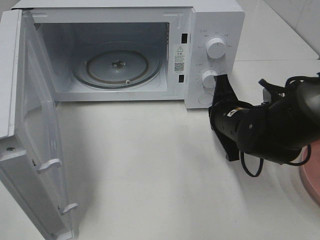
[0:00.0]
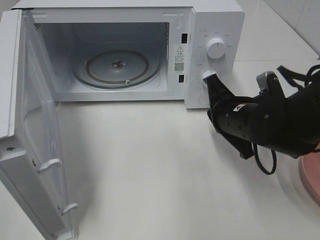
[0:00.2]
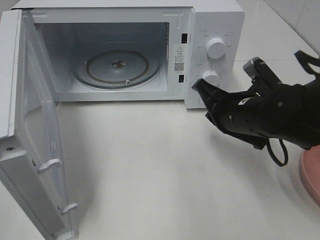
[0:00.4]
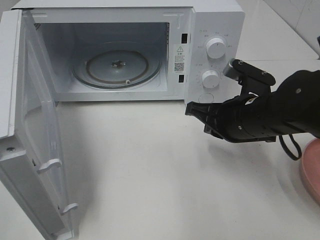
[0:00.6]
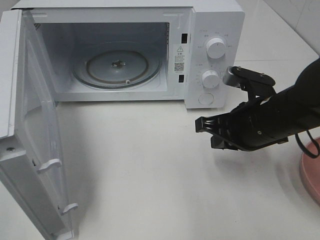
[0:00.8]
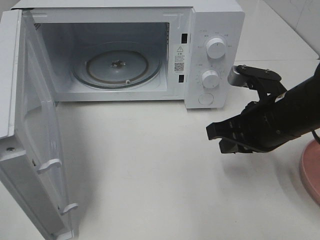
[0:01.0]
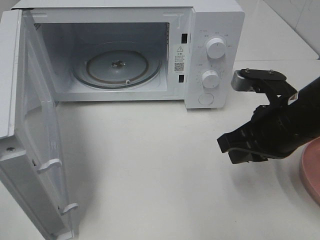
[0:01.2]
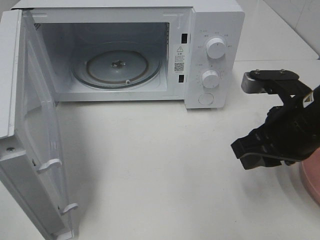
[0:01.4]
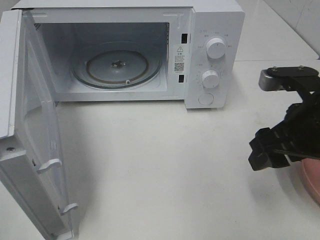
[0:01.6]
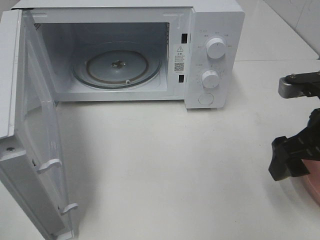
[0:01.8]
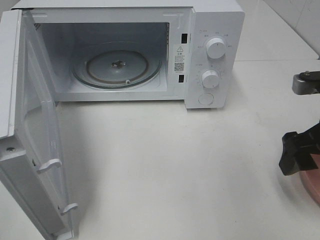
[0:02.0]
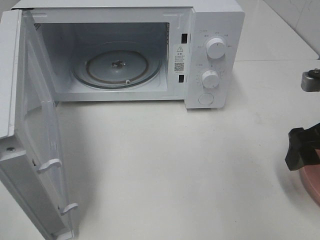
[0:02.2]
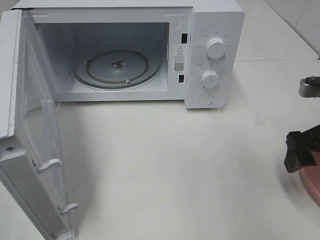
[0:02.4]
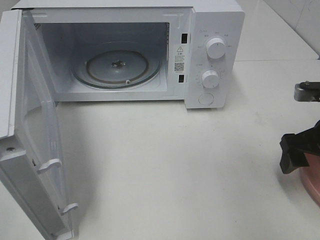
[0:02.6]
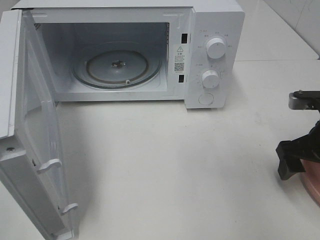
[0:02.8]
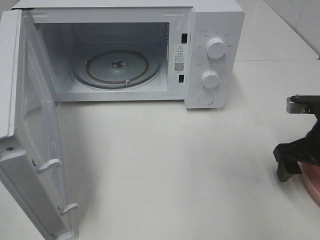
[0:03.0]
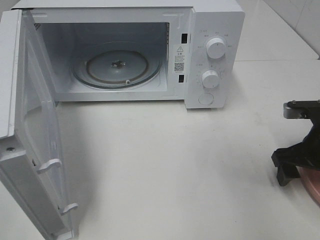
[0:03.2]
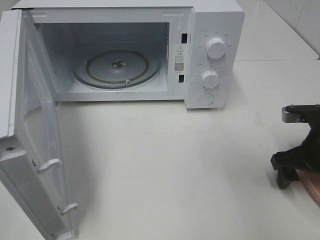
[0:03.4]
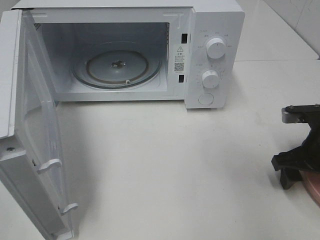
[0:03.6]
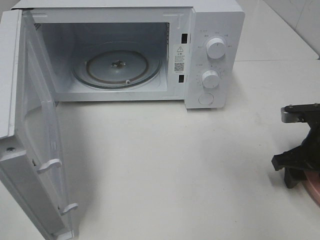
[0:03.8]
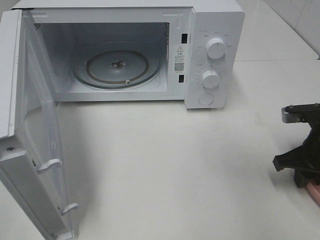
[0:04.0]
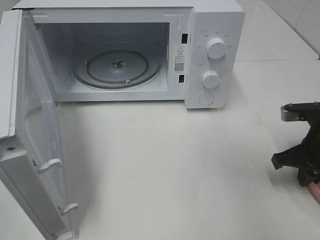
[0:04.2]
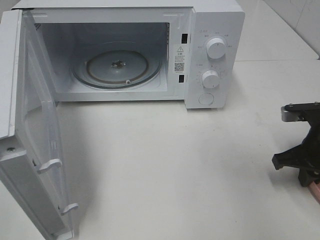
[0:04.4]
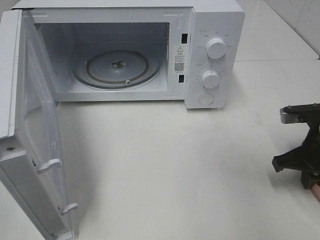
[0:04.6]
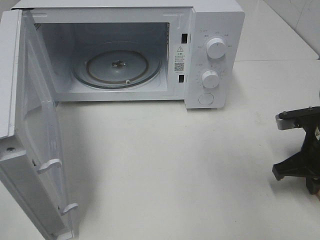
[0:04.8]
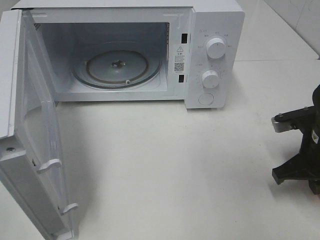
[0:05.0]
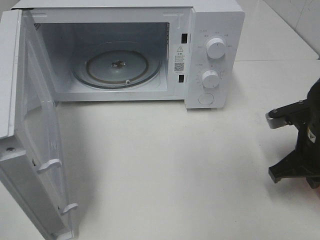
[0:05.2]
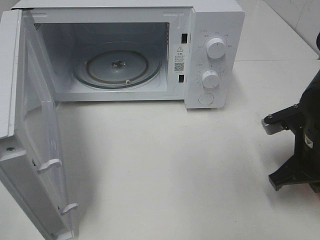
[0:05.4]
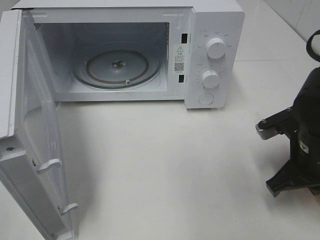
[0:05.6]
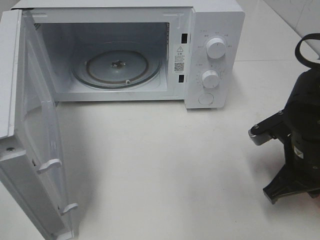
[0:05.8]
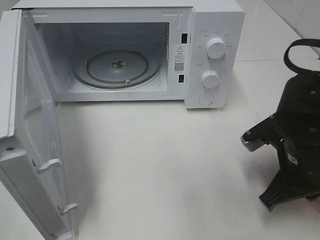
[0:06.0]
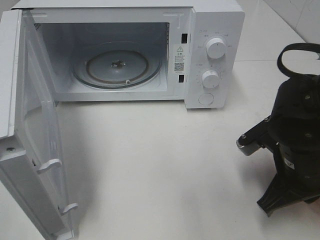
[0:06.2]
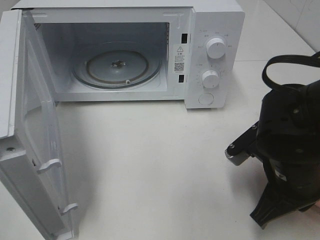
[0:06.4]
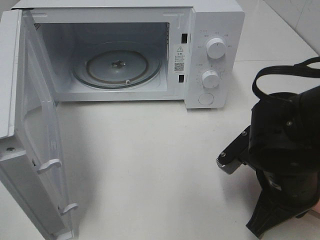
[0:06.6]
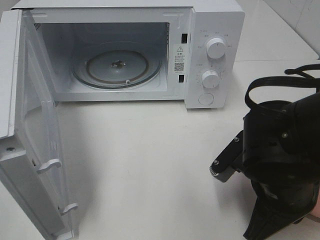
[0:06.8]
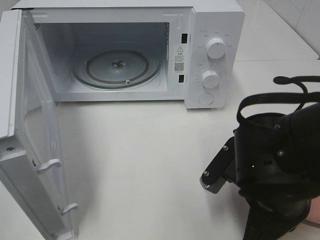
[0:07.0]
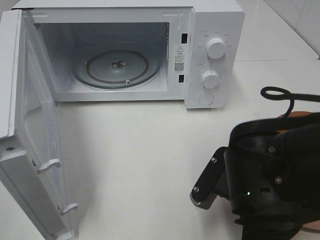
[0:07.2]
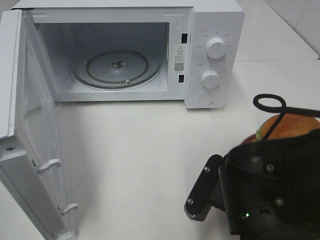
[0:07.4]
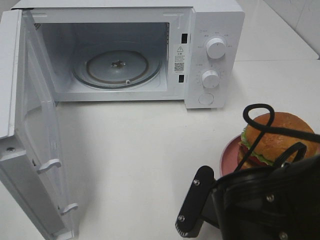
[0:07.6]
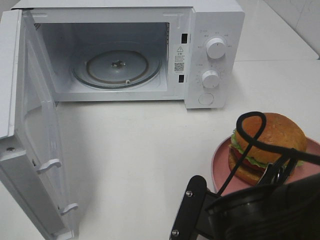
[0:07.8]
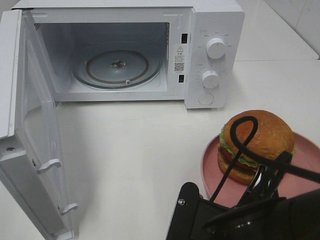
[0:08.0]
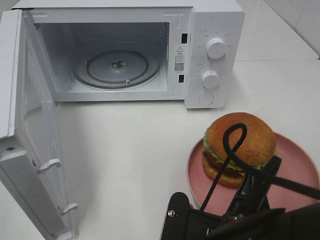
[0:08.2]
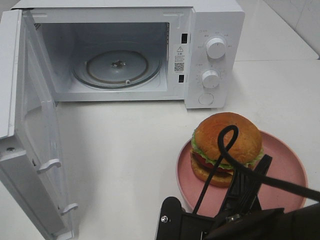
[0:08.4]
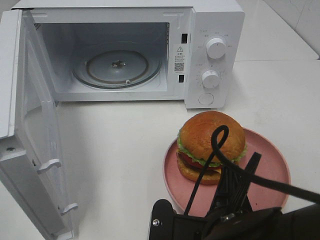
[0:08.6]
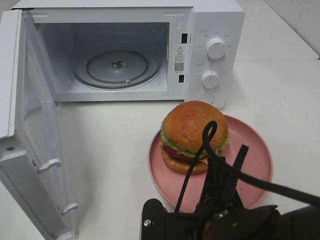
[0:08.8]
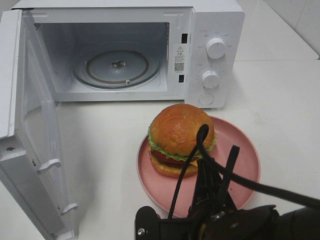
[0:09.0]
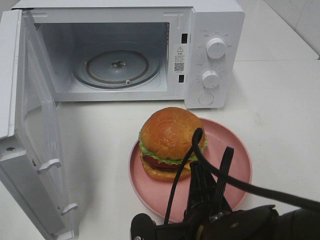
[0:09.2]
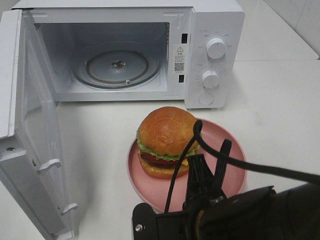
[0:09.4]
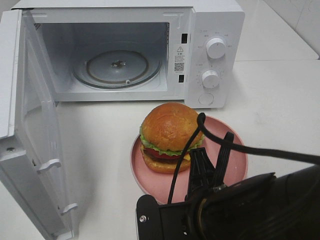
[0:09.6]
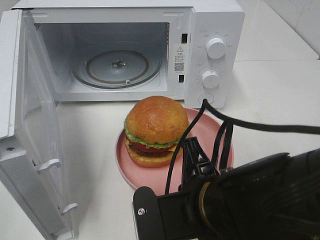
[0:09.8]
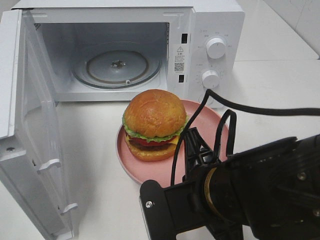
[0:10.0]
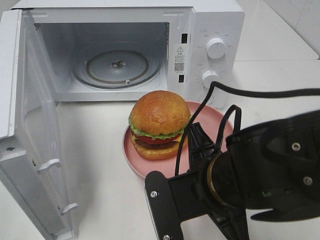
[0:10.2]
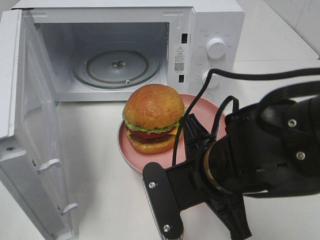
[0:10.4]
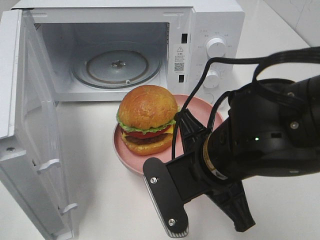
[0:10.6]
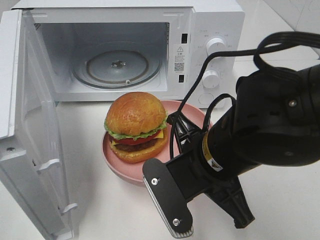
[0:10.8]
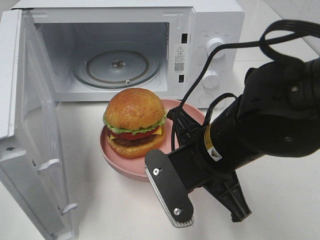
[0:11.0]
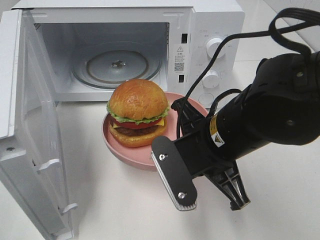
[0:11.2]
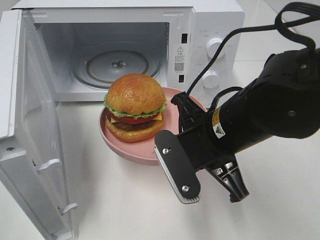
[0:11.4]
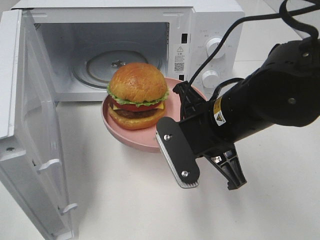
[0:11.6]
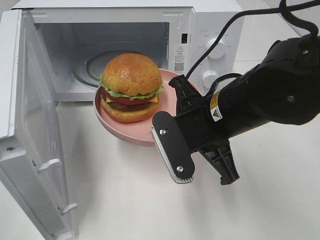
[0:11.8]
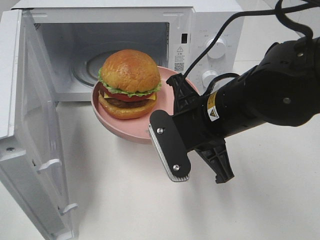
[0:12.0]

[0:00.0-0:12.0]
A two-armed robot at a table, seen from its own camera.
Task of the whole recording: Heat the burger.
Step, 0:00.0 to 0:04.8: Right hand: grab the plate with the hamburger.
0:00.0 to 0:01.6: The right gripper heads upward, backward and to the right, covering about 15 cm, and opens.
0:01.6 to 0:03.0: The right gripper moves downward and to the right, about 10 cm.
0:03.0 to 0:04.4: The right gripper closes.
0:04.4 to 0:06.0: The right gripper travels to the left by about 10 cm.
0:06.0 to 0:07.6: The right gripper goes some 15 cm backward and to the left.
0:09.0 to 0:10.4: The right gripper moves forward, some 5 cm.
0:10.4 to 0:12.0: The right gripper travels forward by roughly 5 cm.

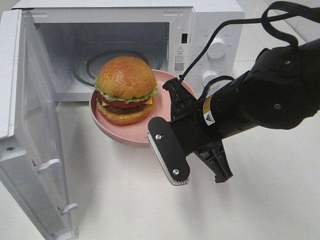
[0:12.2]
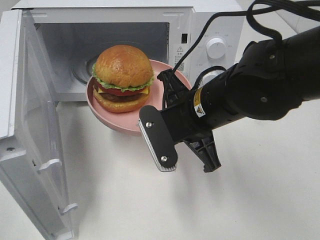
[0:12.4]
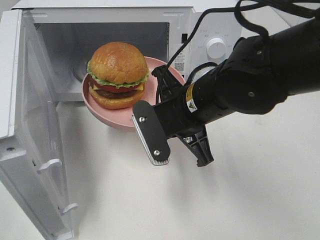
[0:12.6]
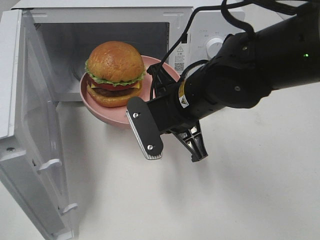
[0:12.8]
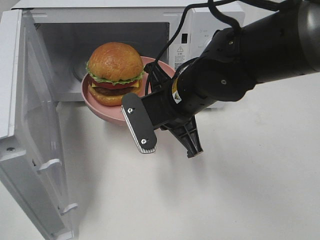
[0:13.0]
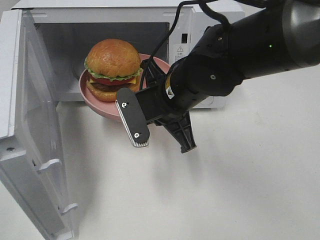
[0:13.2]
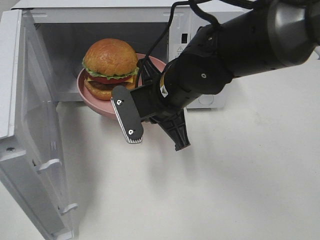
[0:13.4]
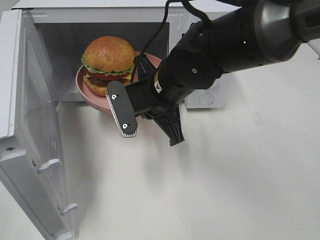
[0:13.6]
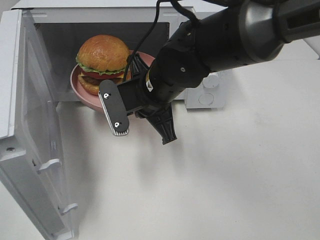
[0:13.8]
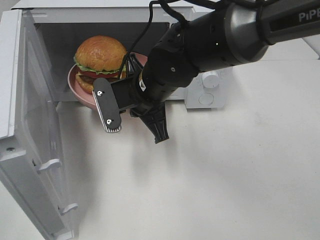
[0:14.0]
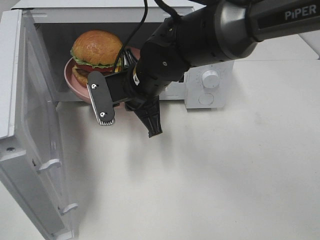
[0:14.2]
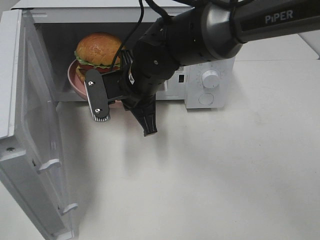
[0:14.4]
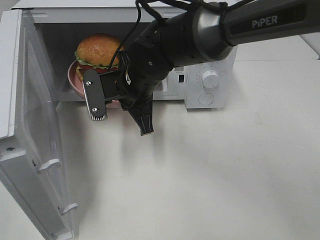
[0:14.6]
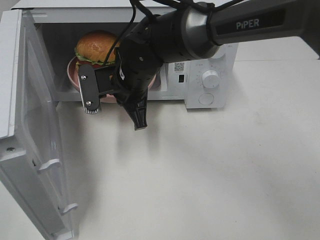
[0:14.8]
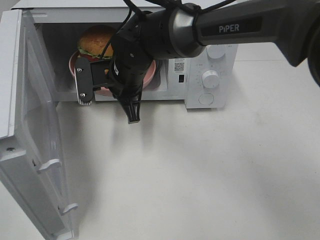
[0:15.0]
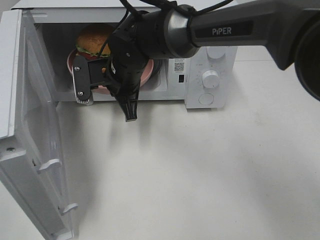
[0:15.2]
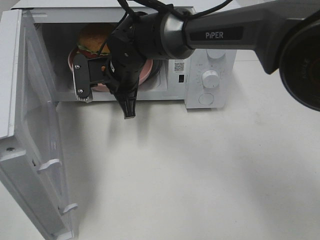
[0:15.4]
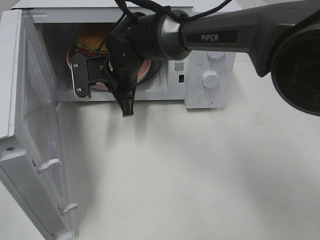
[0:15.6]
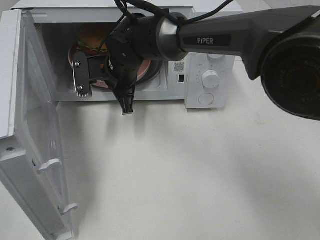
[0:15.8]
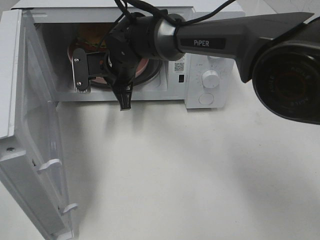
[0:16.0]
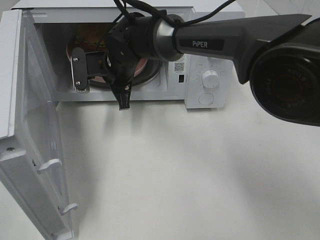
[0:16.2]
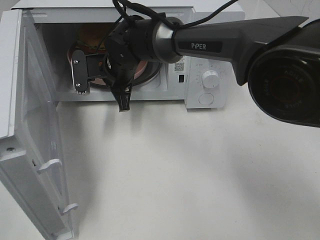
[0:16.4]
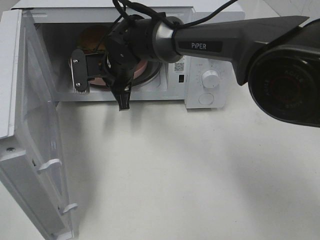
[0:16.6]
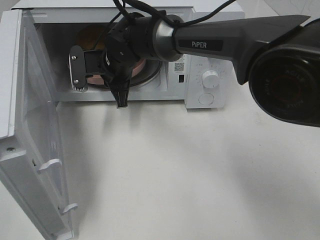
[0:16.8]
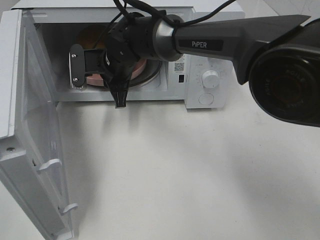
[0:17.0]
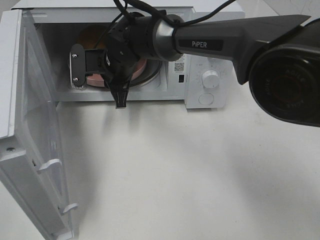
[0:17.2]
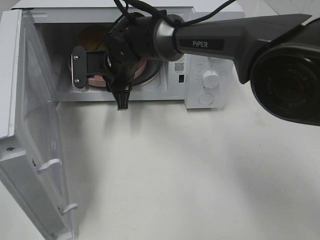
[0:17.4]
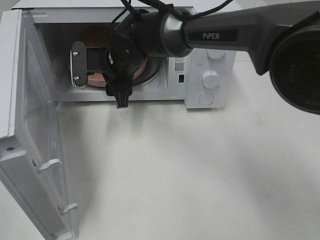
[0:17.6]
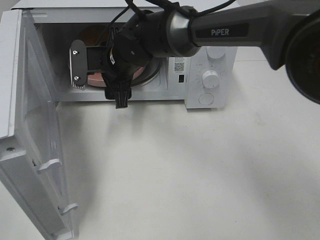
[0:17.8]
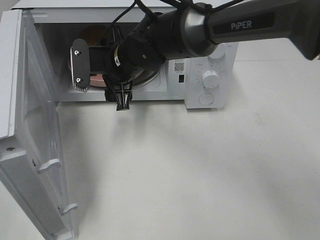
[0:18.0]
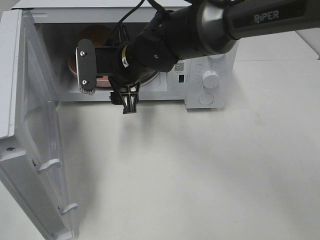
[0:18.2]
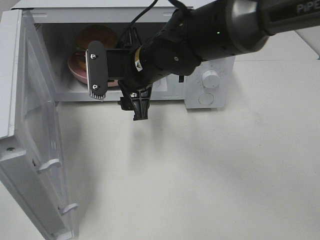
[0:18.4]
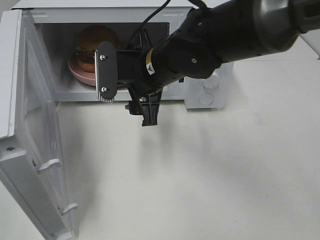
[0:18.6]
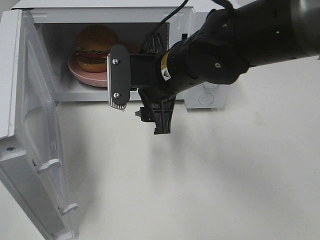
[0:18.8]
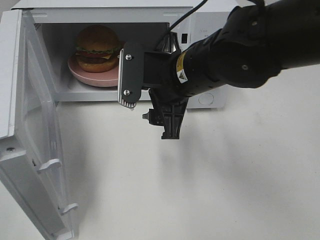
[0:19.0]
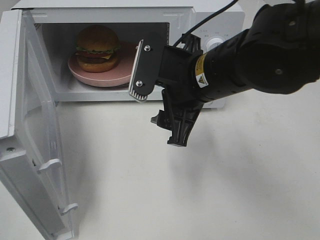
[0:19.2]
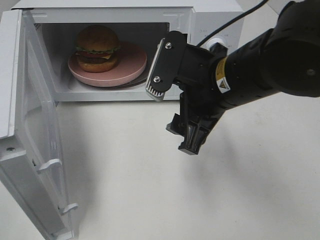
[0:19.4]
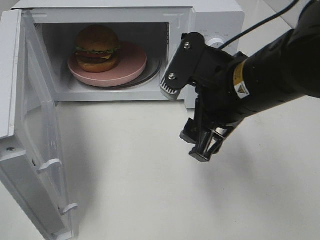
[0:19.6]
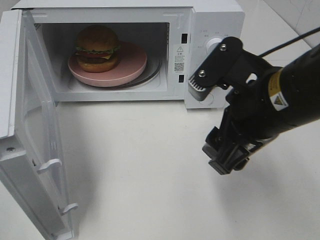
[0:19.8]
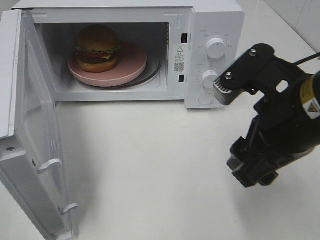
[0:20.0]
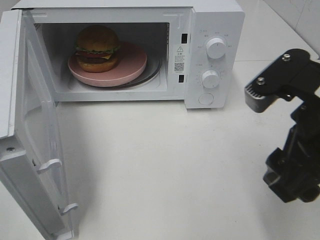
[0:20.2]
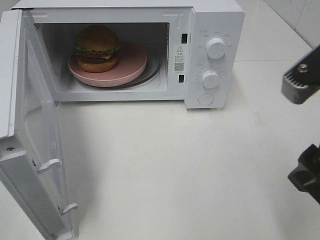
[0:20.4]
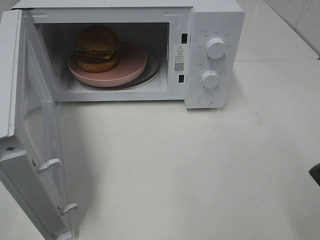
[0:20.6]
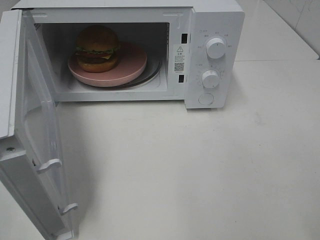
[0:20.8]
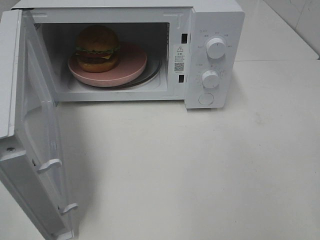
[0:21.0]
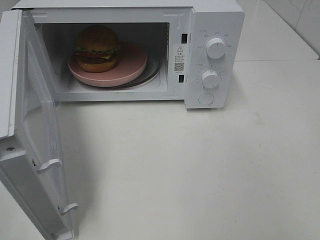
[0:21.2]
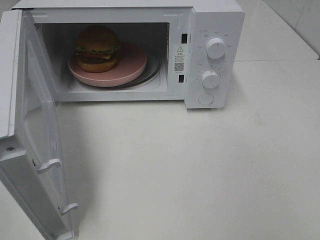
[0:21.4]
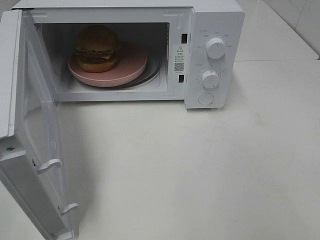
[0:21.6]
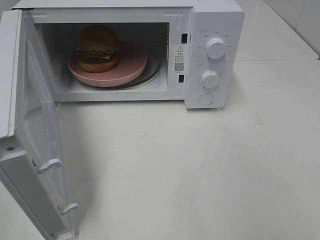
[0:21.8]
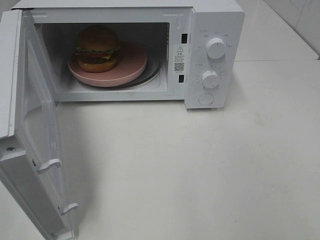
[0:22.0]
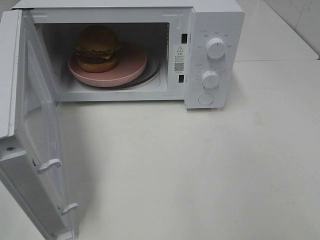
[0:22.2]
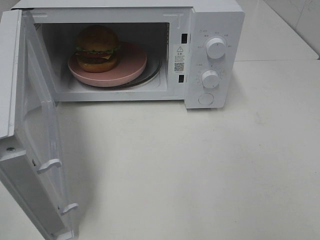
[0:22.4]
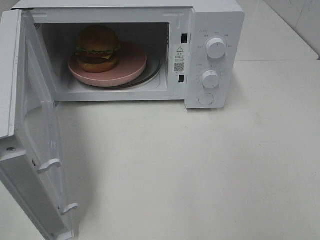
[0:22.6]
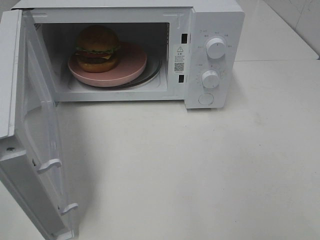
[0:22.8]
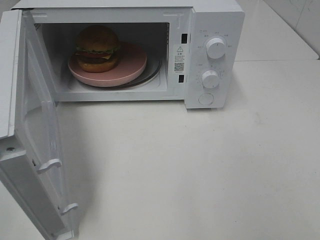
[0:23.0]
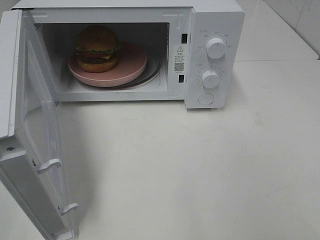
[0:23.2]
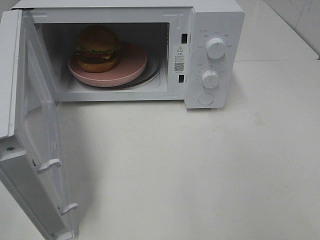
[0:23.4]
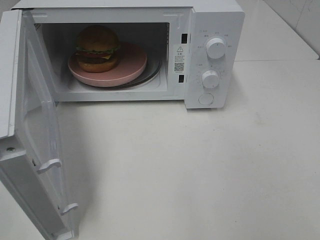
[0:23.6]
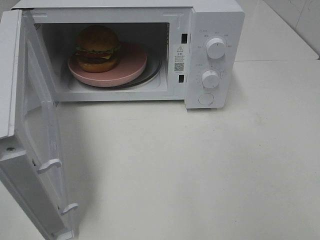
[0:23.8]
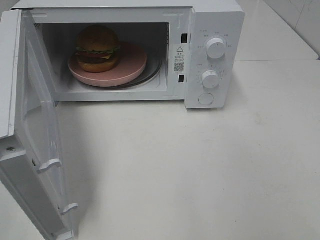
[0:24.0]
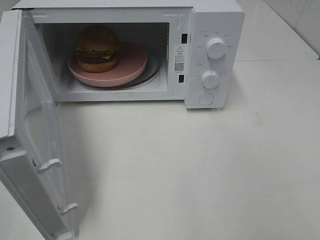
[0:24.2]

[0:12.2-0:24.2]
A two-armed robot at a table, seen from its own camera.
Task of the whole recording: Heat the burger.
Step, 0:12.2 to 0:17.2: Right hand: place the plate in the microwave.
0:12.2 to 0:13.8: The right gripper travels forward and to the left by some 10 cm.
0:13.8 to 0:15.2: The right gripper is displaced forward and to the left by roughly 10 cm.
0:15.2 to 0:16.6: There are only small adjustments of the grippers.
0:16.6 to 0:18.2: The right gripper moves backward, roughly 5 cm, and opens up.
0:18.2 to 0:19.8: The right gripper travels backward and to the right by roughly 25 cm.
0:19.8 to 0:21.2: The right gripper heads to the right, backward and upward, covering approximately 20 cm.
0:22.6 to 0:24.2: The two grippers keep their place.
